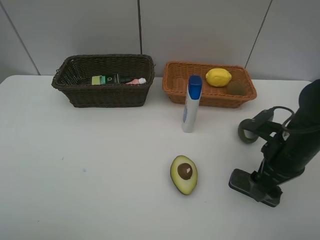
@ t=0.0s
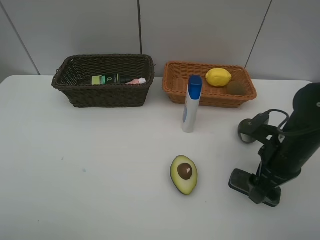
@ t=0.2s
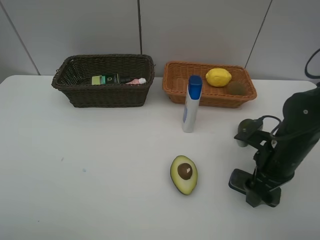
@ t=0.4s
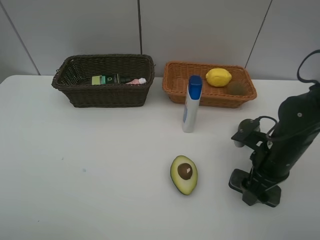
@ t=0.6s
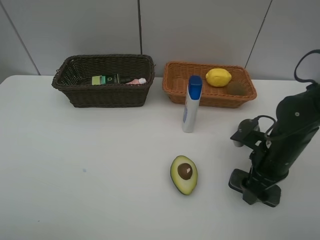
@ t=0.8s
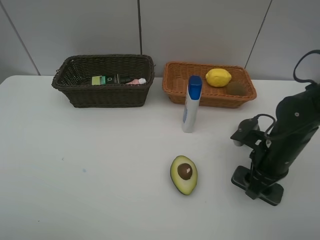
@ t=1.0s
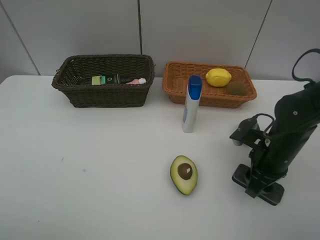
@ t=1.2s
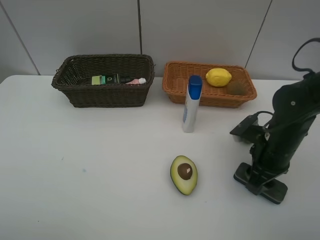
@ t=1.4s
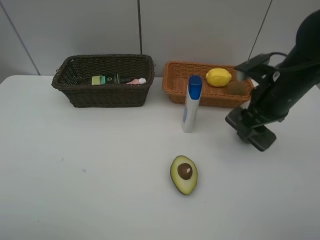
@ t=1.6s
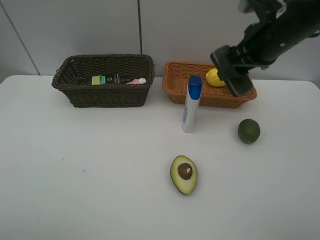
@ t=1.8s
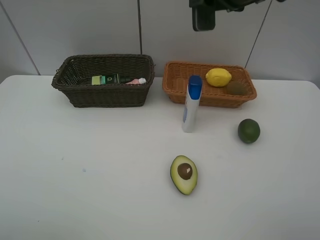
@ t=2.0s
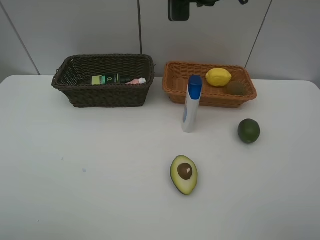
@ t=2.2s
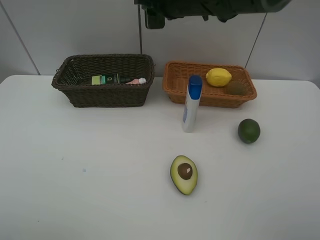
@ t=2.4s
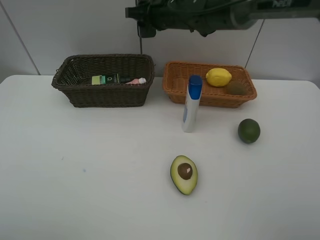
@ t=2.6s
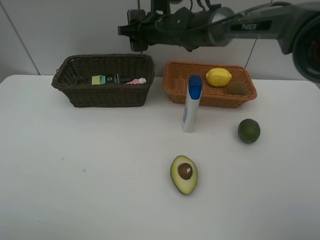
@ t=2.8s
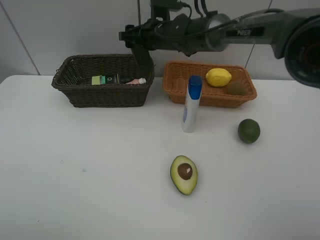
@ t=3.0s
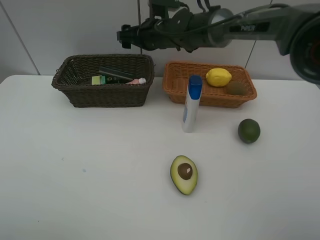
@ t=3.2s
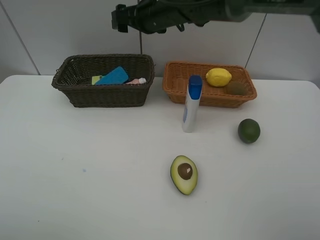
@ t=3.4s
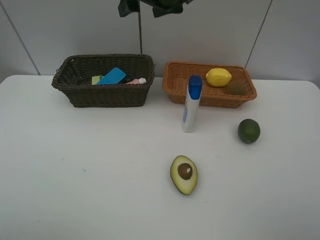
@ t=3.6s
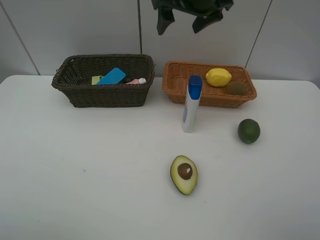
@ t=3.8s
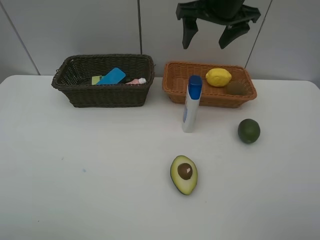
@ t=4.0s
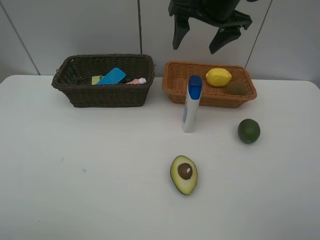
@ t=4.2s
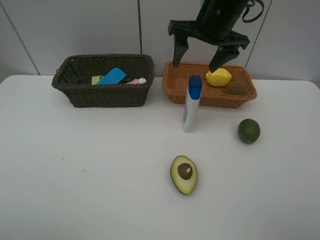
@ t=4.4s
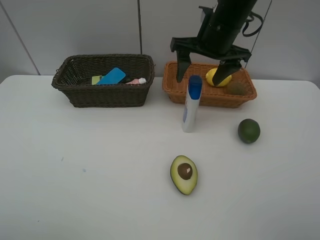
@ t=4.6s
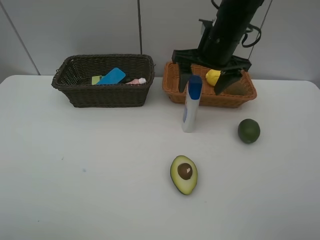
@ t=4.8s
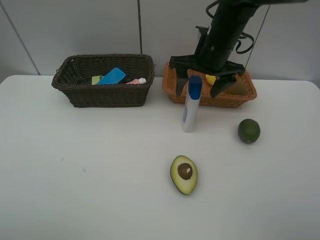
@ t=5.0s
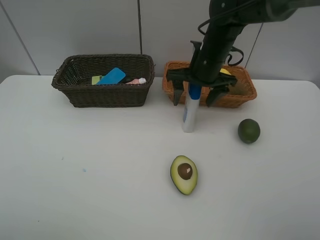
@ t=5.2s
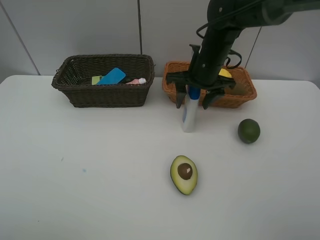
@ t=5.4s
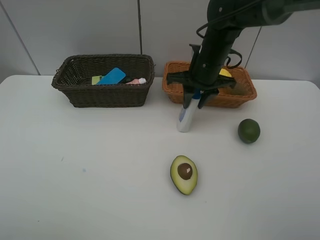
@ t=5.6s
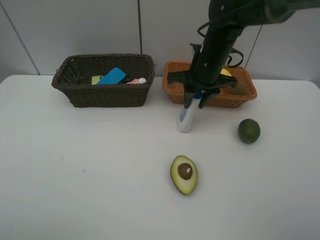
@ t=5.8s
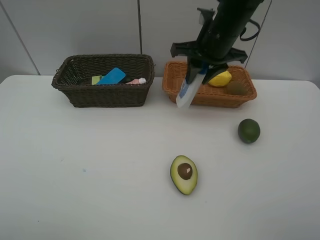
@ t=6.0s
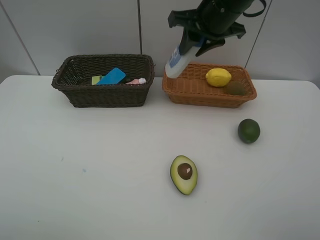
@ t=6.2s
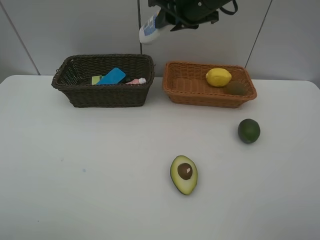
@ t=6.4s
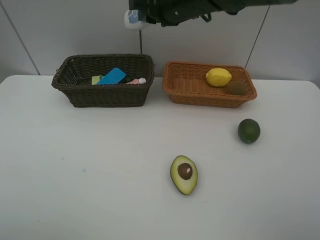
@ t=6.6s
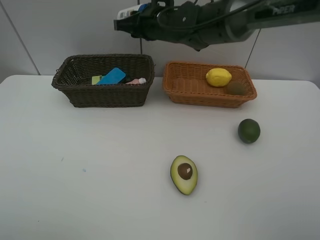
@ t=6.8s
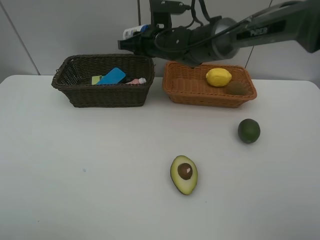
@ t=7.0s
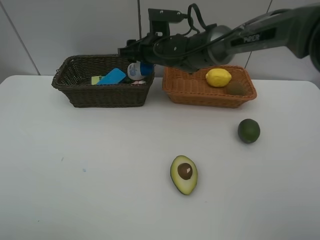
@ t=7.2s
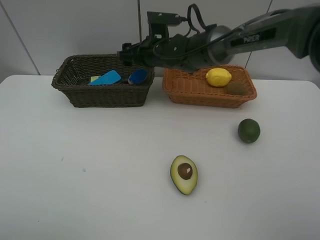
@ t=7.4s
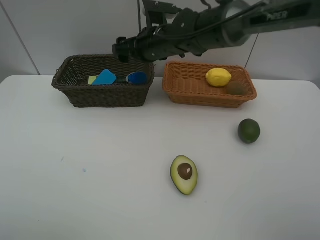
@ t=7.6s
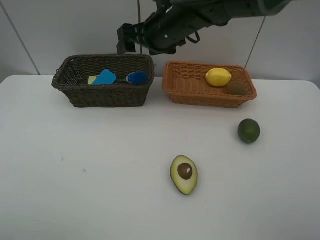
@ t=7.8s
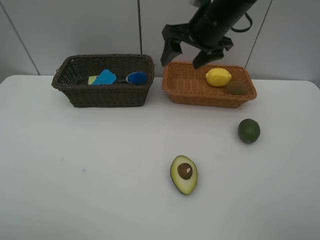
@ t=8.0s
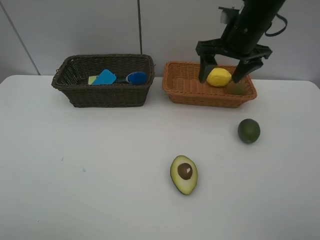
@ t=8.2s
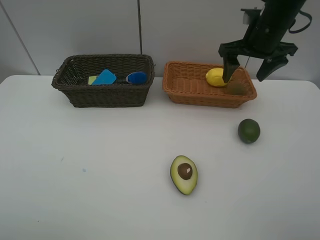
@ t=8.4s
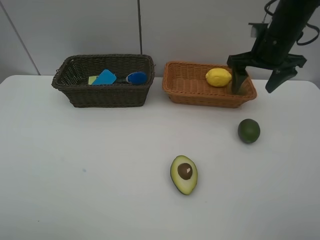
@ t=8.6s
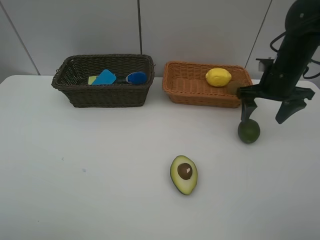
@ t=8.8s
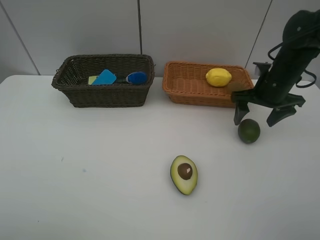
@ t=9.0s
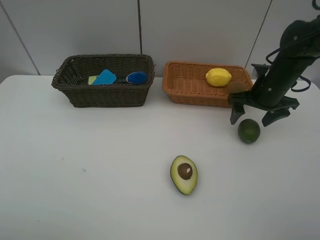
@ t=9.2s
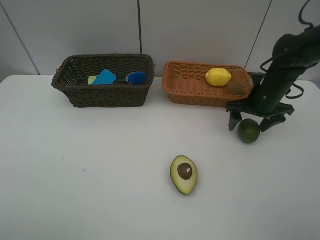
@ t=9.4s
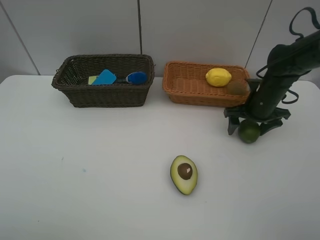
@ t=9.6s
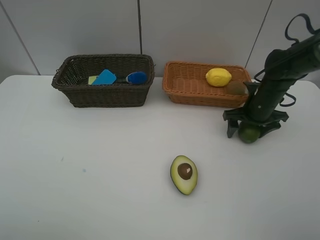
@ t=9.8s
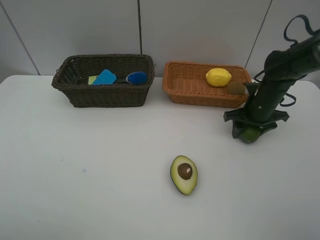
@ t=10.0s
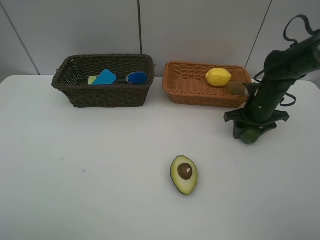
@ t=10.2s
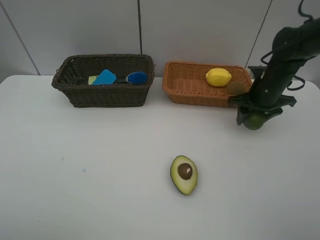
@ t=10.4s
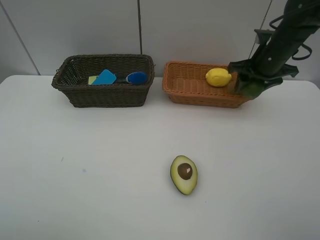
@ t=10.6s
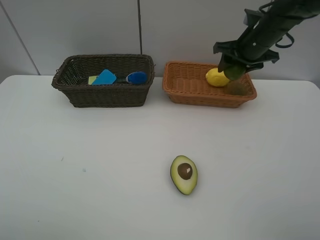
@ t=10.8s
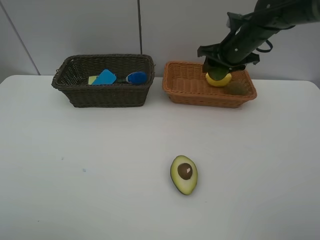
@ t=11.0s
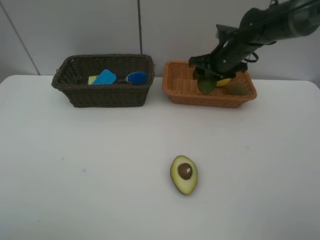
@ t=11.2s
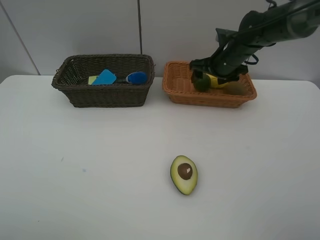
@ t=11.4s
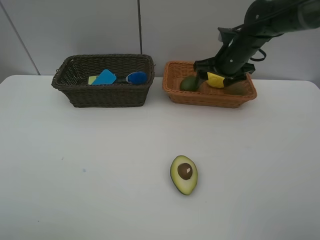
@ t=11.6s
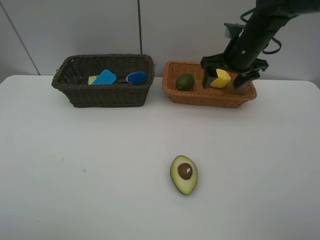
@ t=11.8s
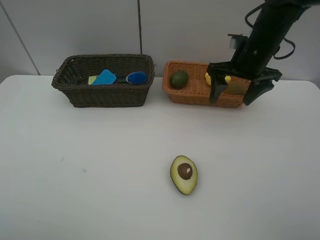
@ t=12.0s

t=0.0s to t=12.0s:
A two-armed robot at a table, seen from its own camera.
Task of the whole recording: Place multiple objects separately in different baskets.
Step, t=1.6s to t=3.2s: Place the blackboard eraser in the dark basket with right gripper.
Step, t=3.4s to t=5.8s: Pick up the shampoo with right gripper.
Step, t=6.0s to t=7.4s: Place the shampoo in the dark basket with right gripper.
Step, t=7.6s to t=10.2s: Pick up the lime with right gripper.
Step, t=10.4s to t=11.6s: Place the lime in the light basket with right gripper.
t=0.0s to t=1.6s: The right gripper shifts roughly 10 cm upward and forward, and closes up.
t=1.6s to t=3.0s: The right gripper goes approximately 30 cm to the left and forward, and opens.
t=3.0s to t=4.4s: The right gripper heads to the right, backward and upward, covering about 15 cm.
t=4.4s to t=6.0s: The right gripper moves approximately 10 cm downward and comes back, and closes up.
t=6.0s to t=7.6s: The right gripper travels to the left and downward by approximately 15 cm, and opens up.
t=7.6s to t=9.0s: The right gripper goes approximately 25 cm to the right.
t=9.0s to t=10.4s: The right gripper closes its fingers.
t=10.4s to t=12.0s: The right gripper shifts approximately 10 cm to the left and upward, travels forward and back again, some 5 cm each way, and opens its fingers.

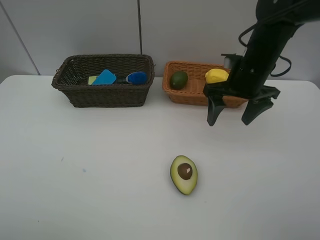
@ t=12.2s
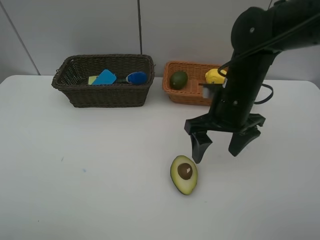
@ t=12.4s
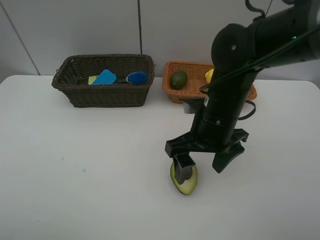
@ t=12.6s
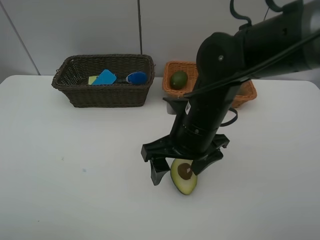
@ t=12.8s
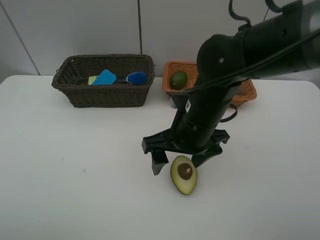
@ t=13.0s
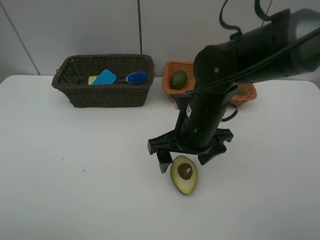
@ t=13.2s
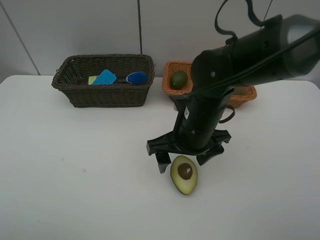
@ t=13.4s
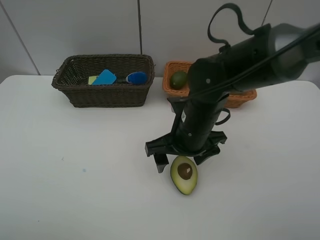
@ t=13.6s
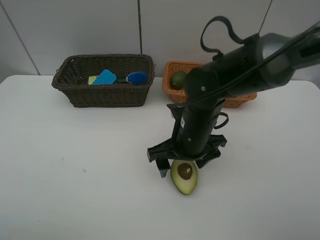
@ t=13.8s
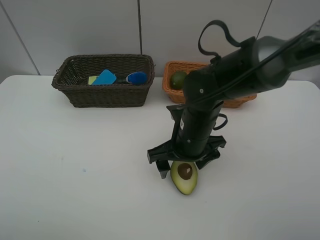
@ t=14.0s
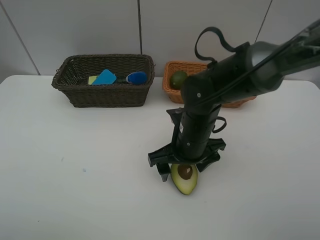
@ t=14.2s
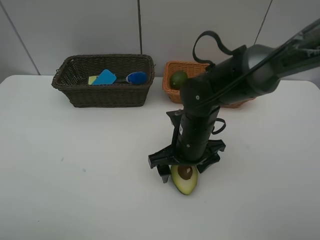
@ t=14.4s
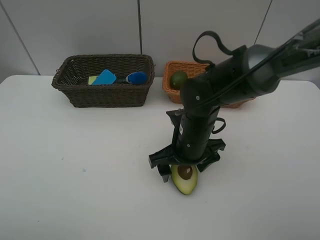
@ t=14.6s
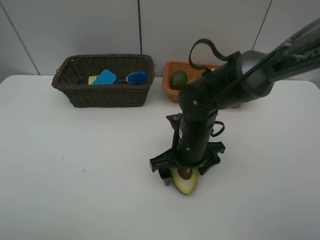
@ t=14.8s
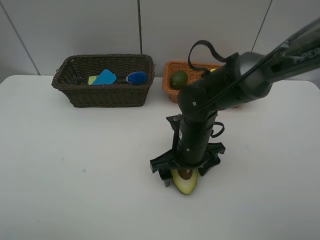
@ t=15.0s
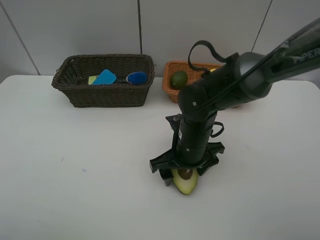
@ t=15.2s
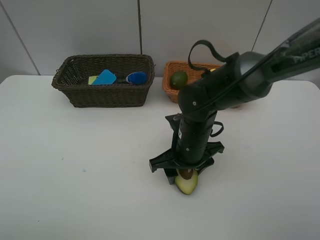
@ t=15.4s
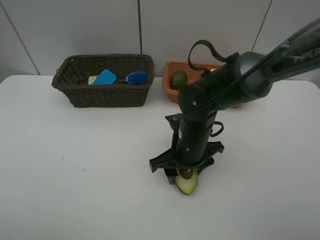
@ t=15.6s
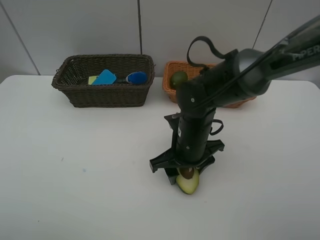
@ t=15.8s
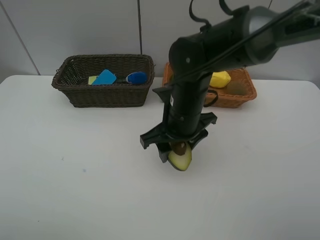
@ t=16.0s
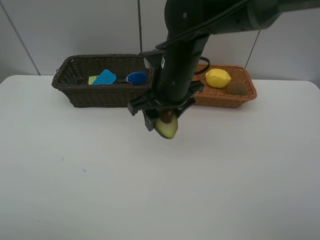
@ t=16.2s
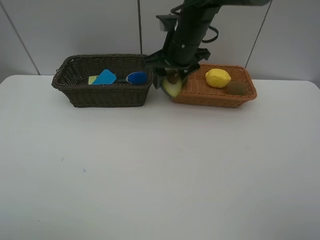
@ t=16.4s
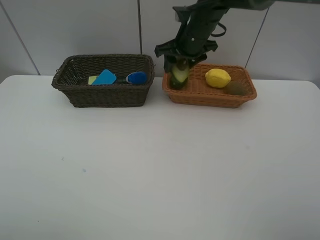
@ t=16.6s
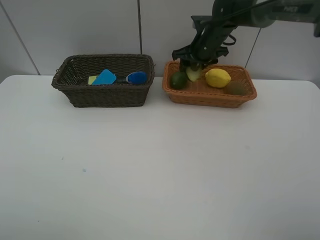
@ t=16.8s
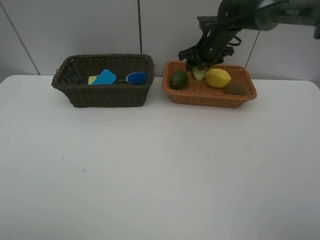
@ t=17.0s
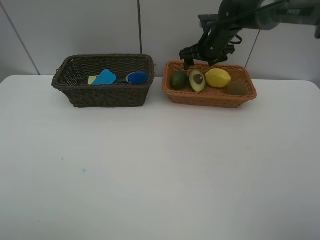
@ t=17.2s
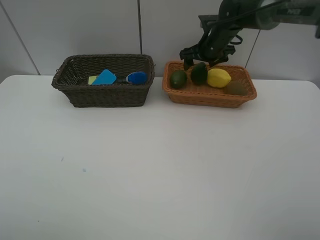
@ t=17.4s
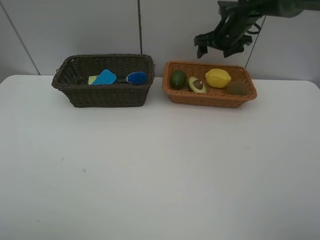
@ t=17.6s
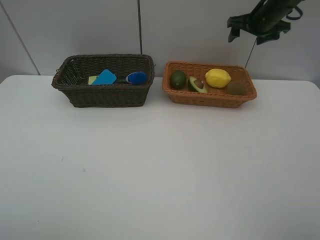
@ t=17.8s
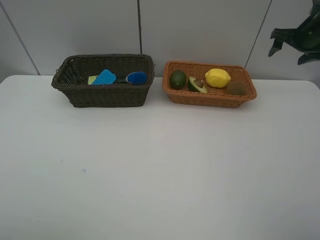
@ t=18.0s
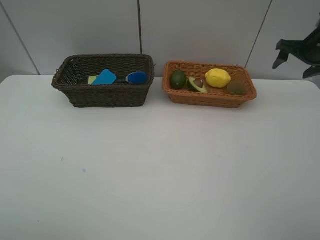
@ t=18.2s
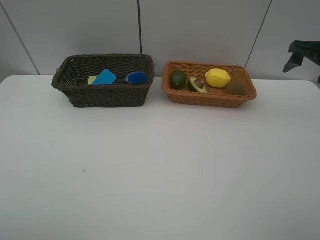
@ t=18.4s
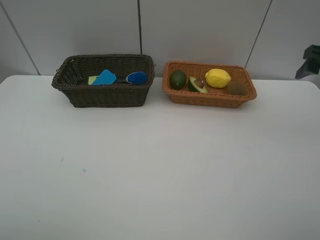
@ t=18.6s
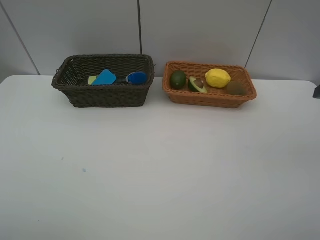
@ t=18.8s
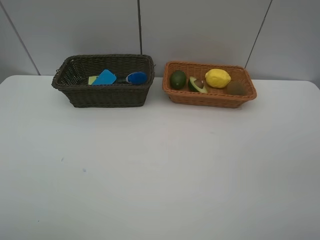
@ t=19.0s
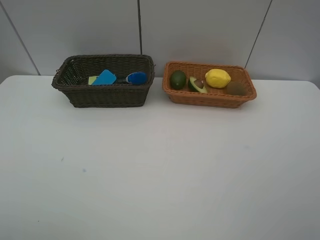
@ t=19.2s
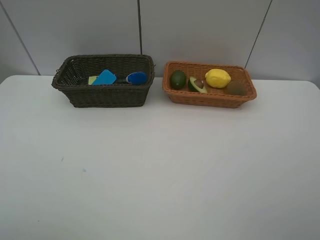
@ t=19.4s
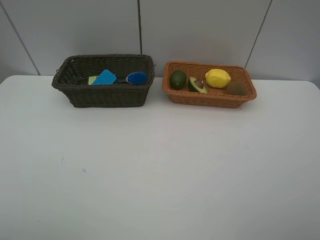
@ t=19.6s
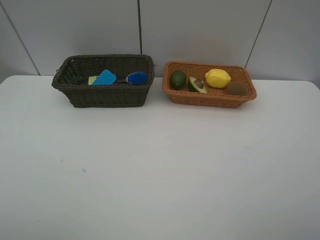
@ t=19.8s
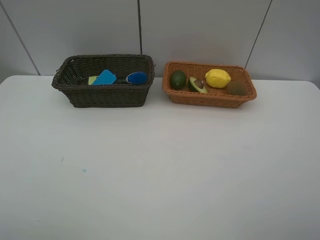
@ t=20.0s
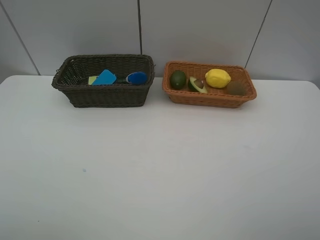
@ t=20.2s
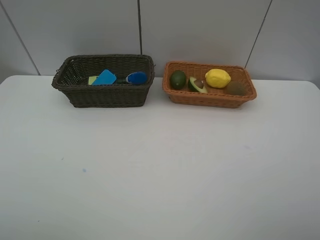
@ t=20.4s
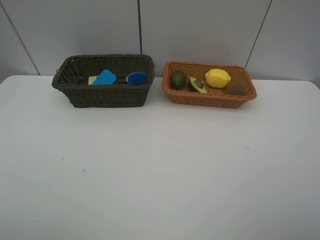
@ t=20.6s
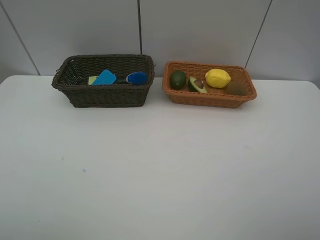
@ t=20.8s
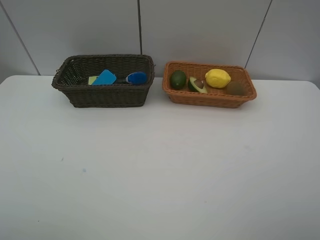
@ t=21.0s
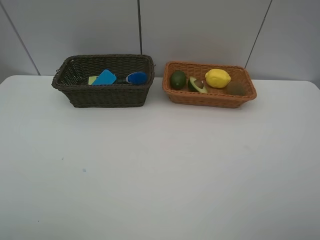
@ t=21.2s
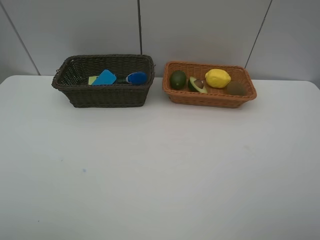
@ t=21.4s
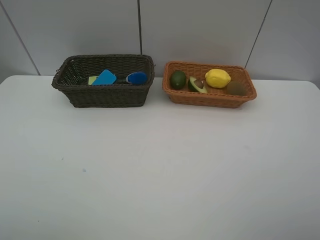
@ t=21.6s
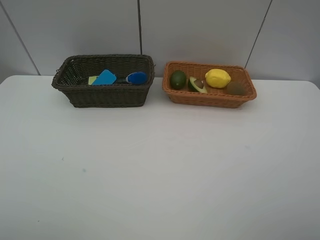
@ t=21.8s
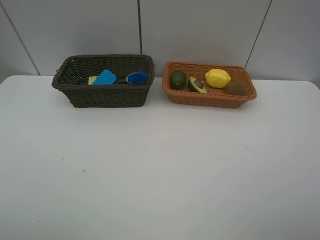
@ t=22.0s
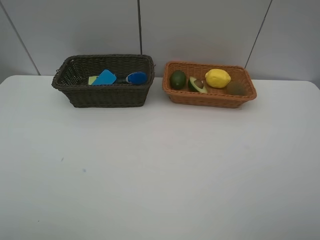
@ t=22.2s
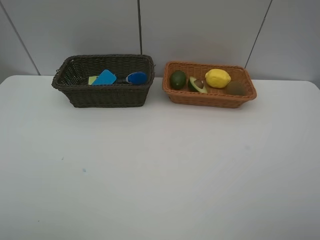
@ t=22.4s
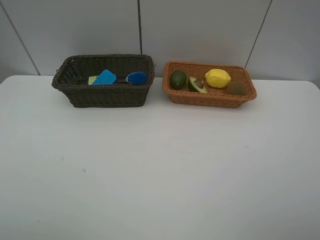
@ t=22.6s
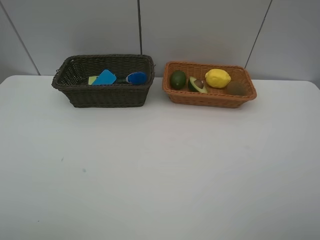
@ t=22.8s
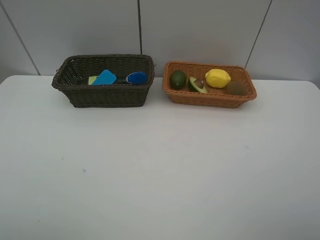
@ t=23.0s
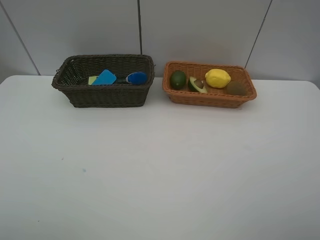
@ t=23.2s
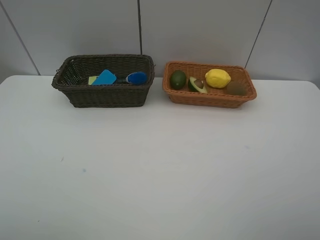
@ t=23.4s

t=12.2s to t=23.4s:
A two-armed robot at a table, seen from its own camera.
Task of the whole recording: Place multiple objects separately in different baskets.
Step, t=12.2s to t=15.8s: Pick up the avocado with right gripper.
Step, t=16.0s to t=17.4s: Place the avocado in the light basket with right gripper.
t=12.2s to t=13.8s: The right gripper shifts roughly 15 cm to the left, downward and backward.
t=13.8s to t=15.4s: The right gripper closes.
t=15.4s to t=17.0s: The right gripper goes approximately 25 cm forward.
t=17.0s to t=18.6s: The right gripper goes some 30 cm backward and to the right, and opens up.
t=18.6s to t=20.2s: The right gripper heads backward, covering about 30 cm.
t=20.2s to t=23.4s: Both grippers stay about where they are.
